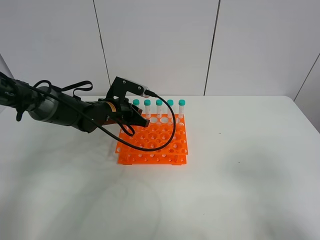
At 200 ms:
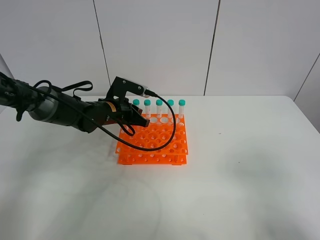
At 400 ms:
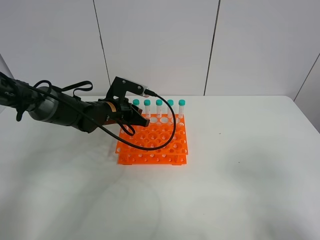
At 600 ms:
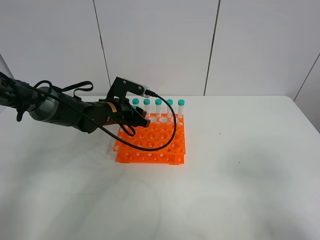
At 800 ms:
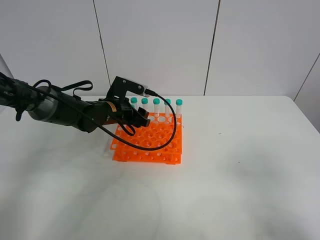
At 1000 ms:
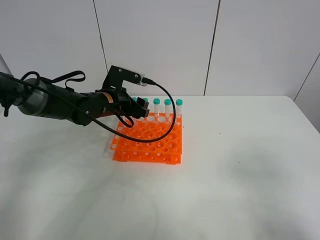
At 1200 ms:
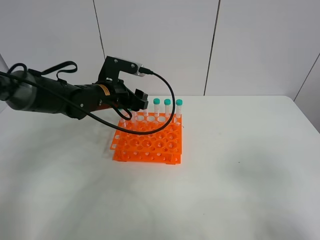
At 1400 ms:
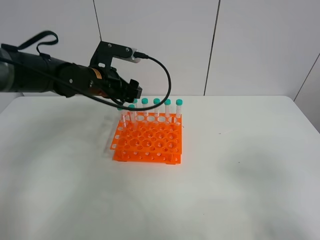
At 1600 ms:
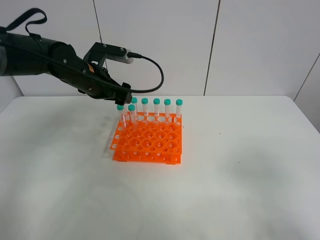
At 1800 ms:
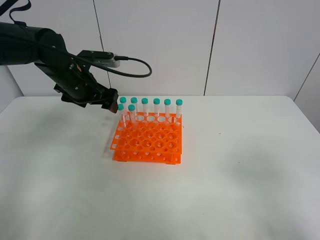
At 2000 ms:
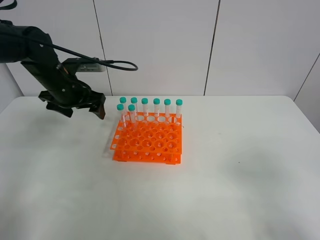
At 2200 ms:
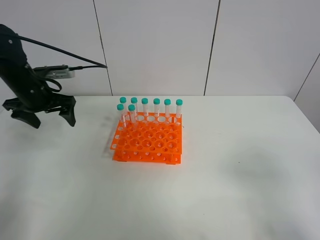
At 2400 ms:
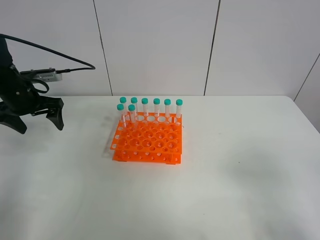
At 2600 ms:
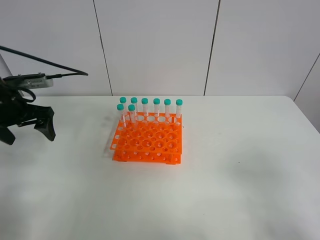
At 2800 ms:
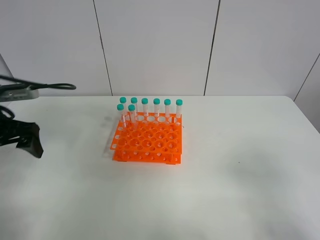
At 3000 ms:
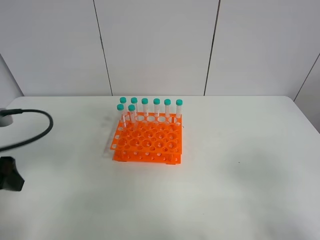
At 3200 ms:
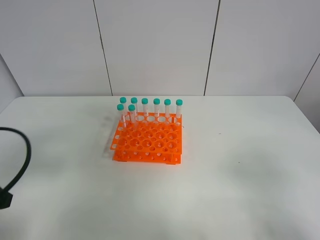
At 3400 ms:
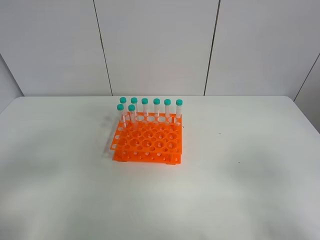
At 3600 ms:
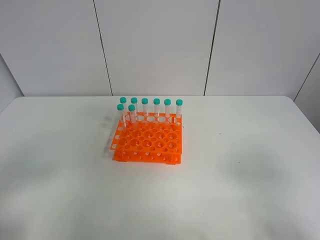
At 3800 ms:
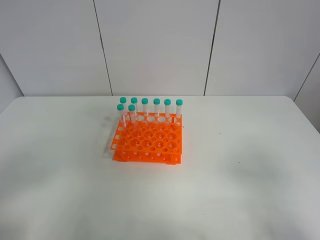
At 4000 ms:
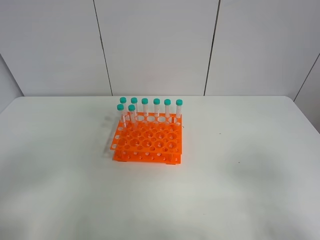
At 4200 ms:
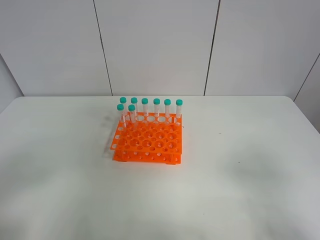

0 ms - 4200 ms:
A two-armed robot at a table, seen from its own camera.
Task of the whole recording: Put the test tube on the table back onto the test tube rack.
Step, 0 ms - 2000 ms: Place the test tube on the test tube rack with the left gripper.
0 ms - 1400 ms: The left gripper is displaced upward by approximately 10 cm, and opens up.
1400 ms - 2800 ms: The left gripper shifts roughly 20 cm to the left and backward.
2800 ms - 4200 ms: The left gripper shifts some 25 cm backward.
